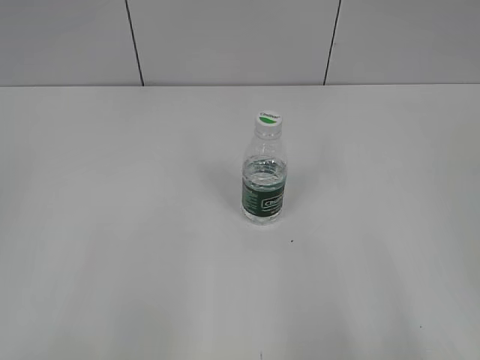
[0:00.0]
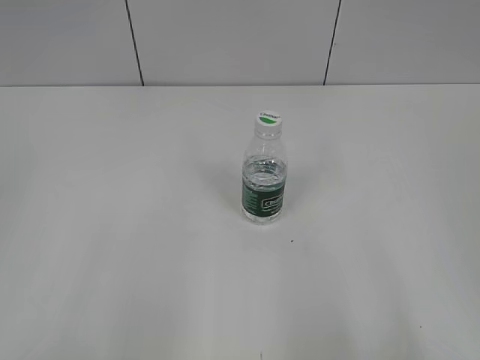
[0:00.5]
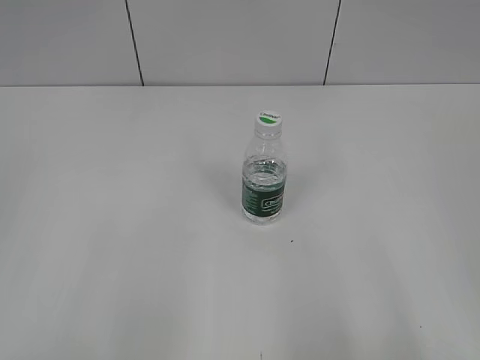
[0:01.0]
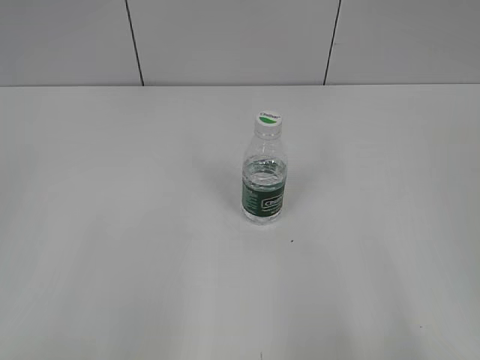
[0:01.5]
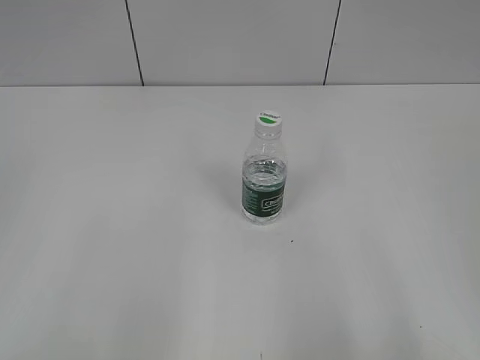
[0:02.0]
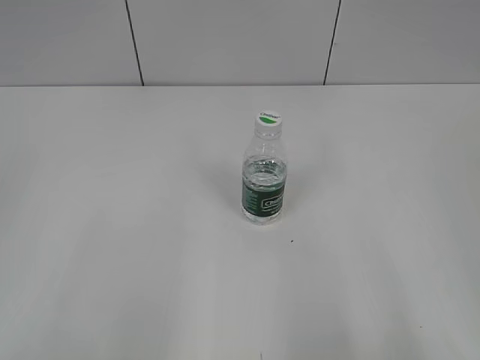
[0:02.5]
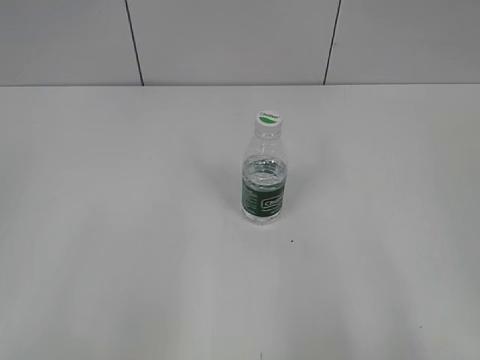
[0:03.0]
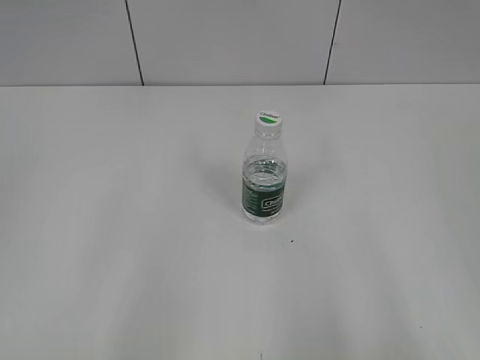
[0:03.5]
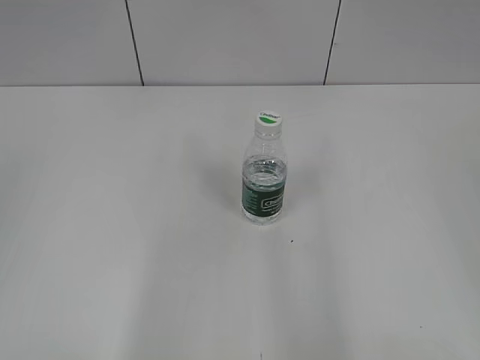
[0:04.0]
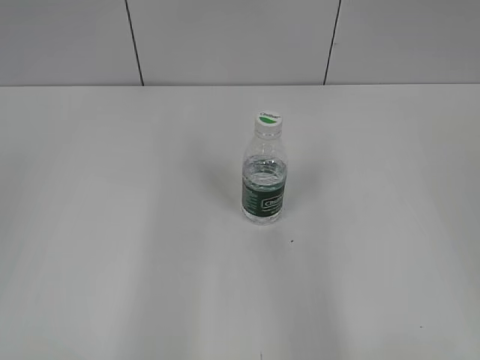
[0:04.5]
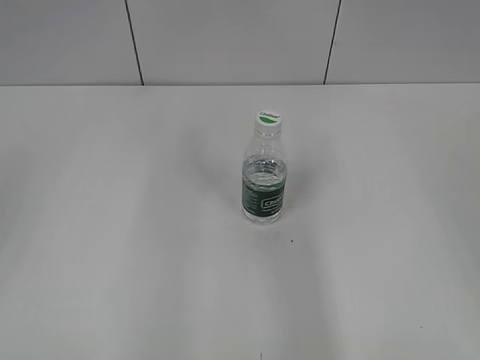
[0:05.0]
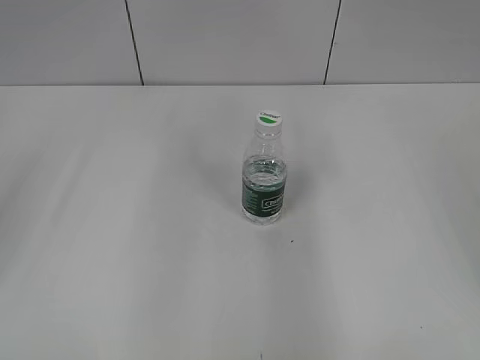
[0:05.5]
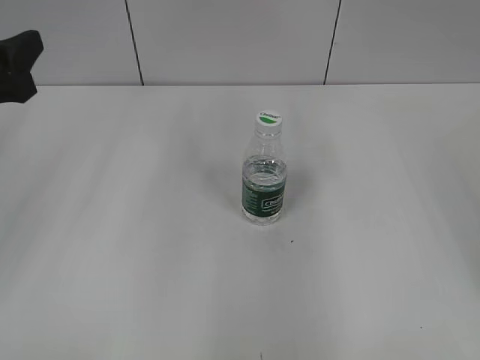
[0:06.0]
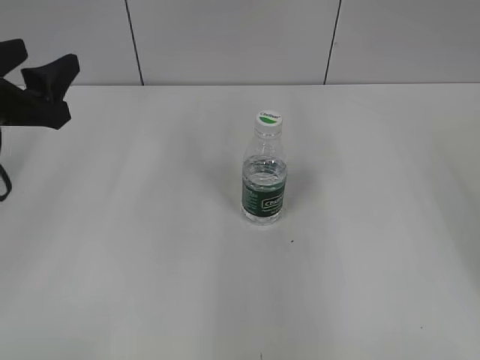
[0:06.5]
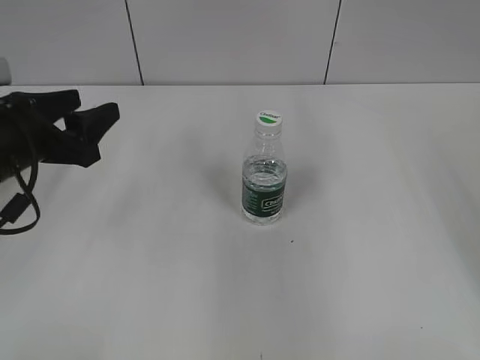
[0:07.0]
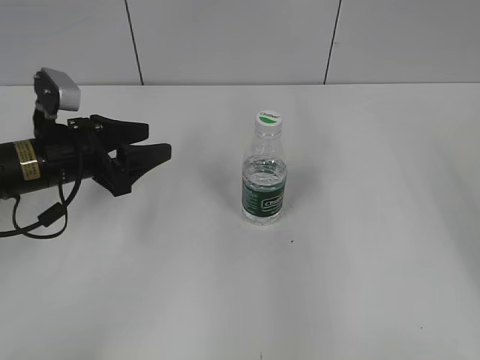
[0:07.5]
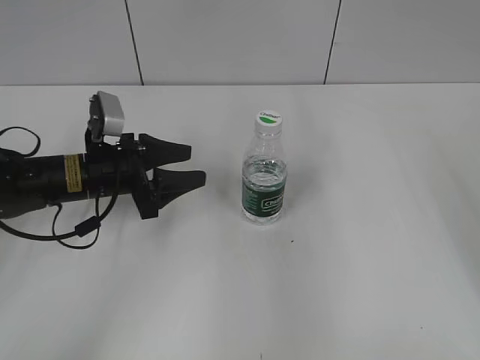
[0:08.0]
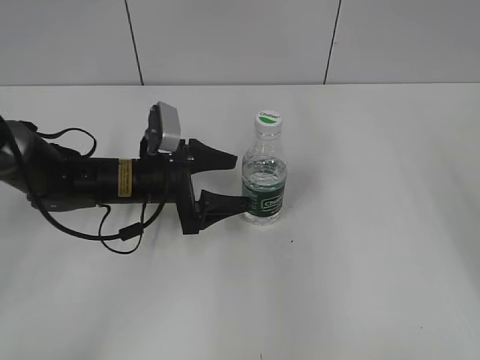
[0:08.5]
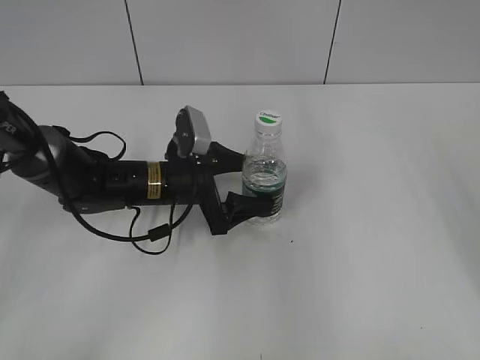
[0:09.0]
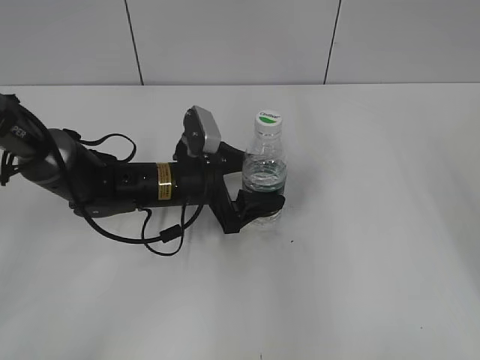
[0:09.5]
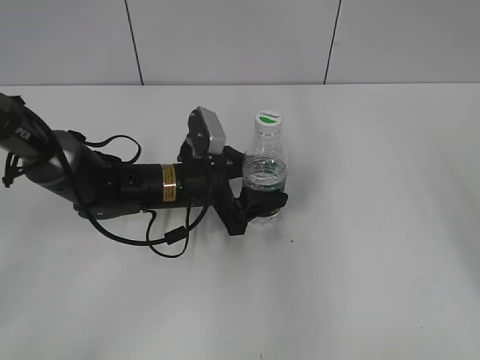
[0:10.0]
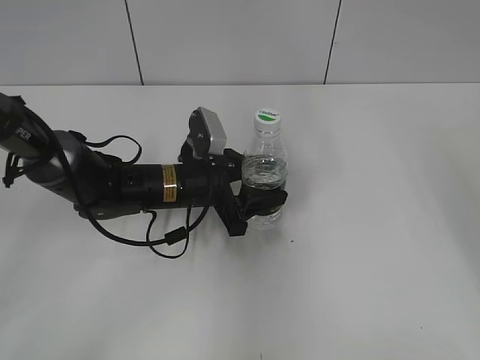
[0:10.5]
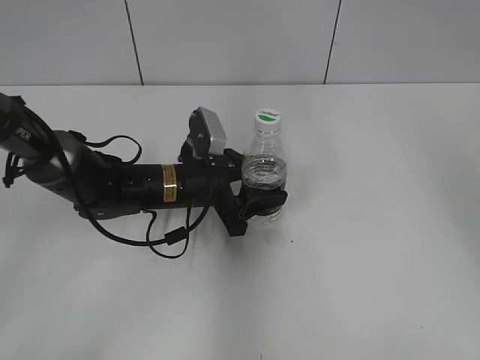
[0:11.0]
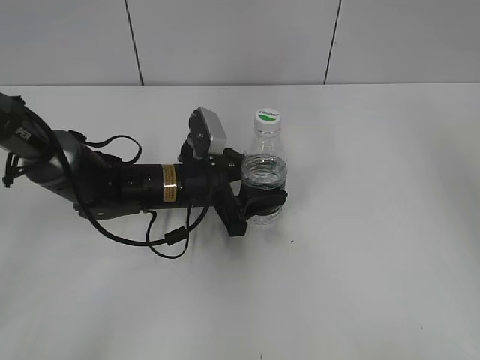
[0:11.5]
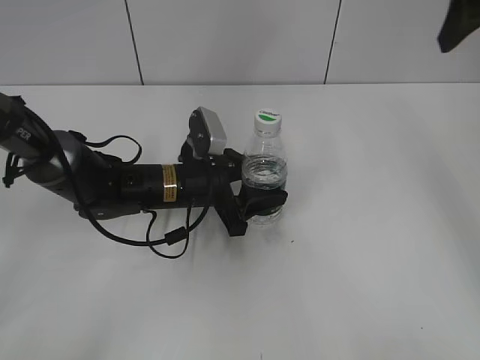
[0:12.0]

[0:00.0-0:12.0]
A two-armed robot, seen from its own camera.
Step, 0:00.0 to 0:10.5: Grasp the bottle and move it to the center of the table with the left gripper.
0:04.0 to 0:06.0: The left gripper shifts some 20 cm forward and downward.
0:06.0 to 0:08.0: The left gripper heads downward, forward and to the right, covering about 20 cm.
0:08.0 to 0:10.0: The left gripper is displaced to the right by some 10 cm, and opens and closes again.
0:10.0 to 0:12.0: The right gripper is displaced forward, upward and to the left by some 15 cm.

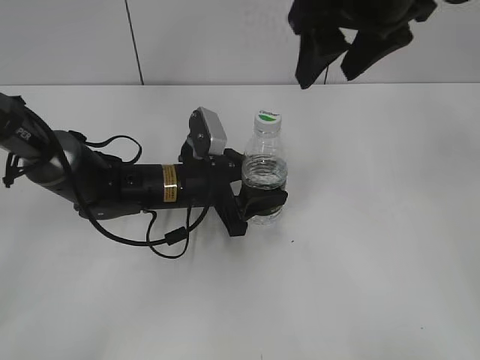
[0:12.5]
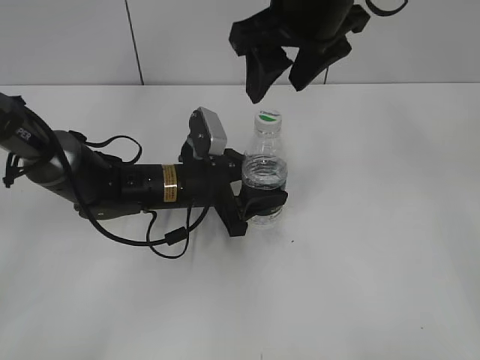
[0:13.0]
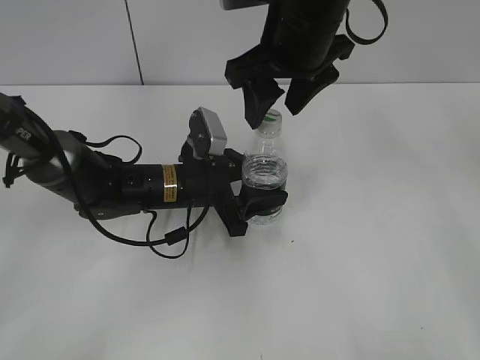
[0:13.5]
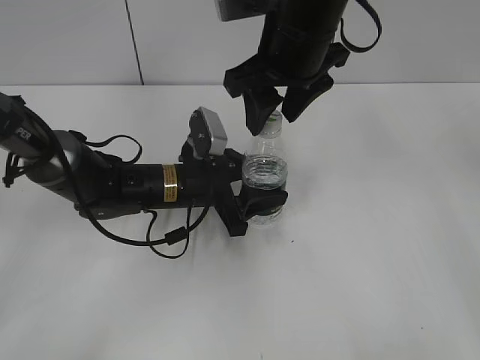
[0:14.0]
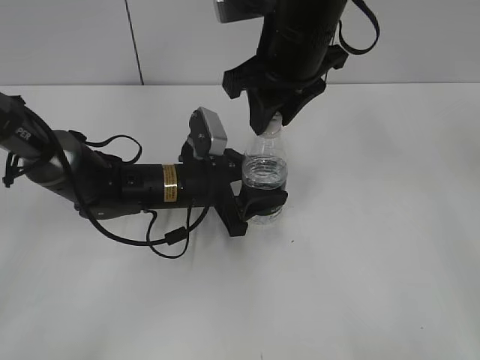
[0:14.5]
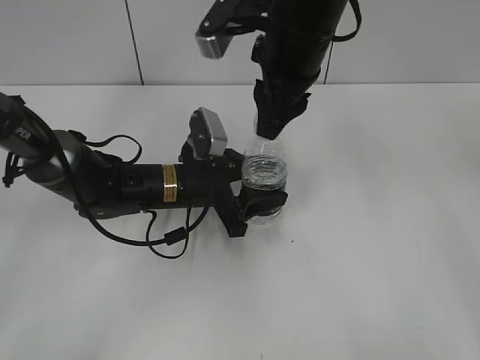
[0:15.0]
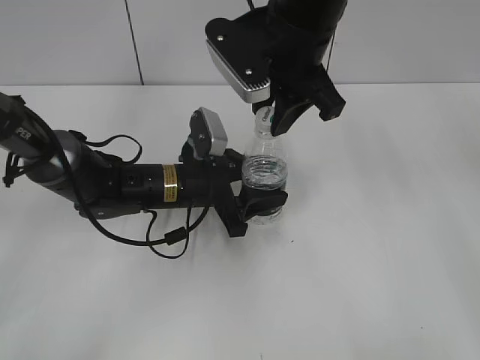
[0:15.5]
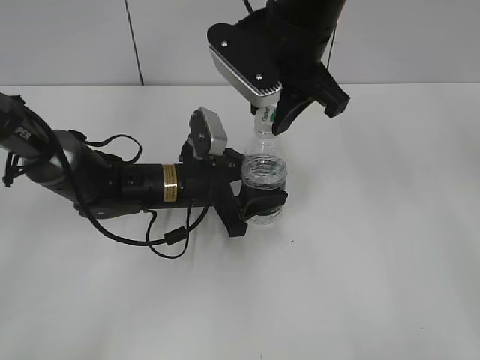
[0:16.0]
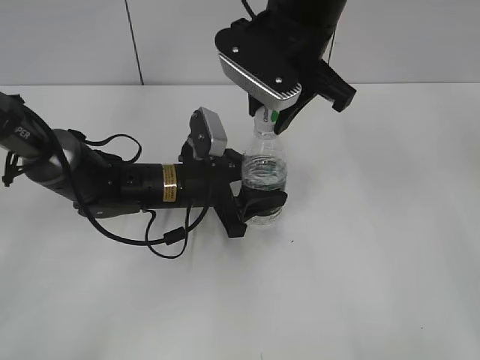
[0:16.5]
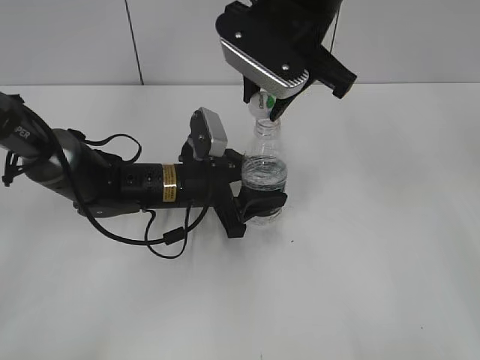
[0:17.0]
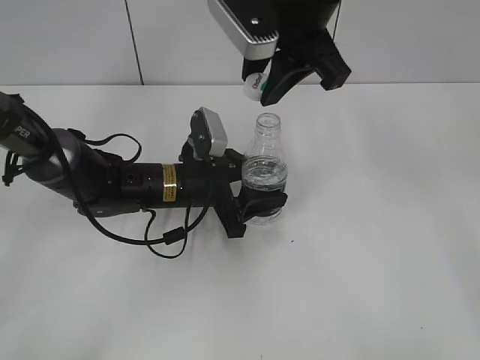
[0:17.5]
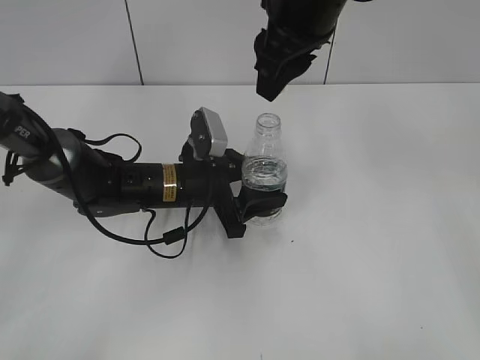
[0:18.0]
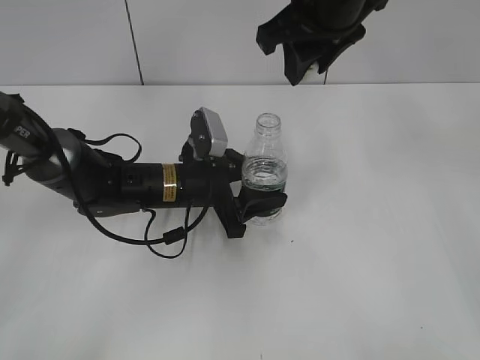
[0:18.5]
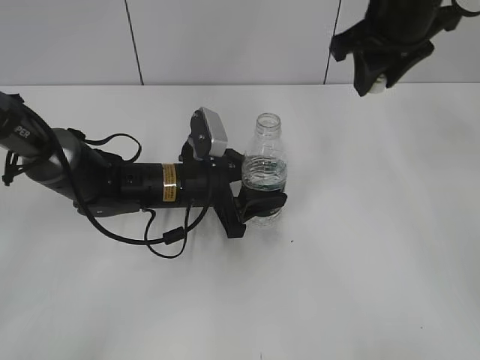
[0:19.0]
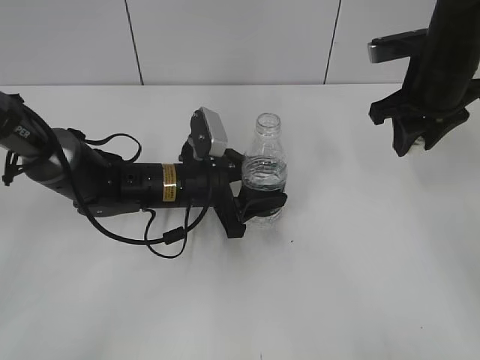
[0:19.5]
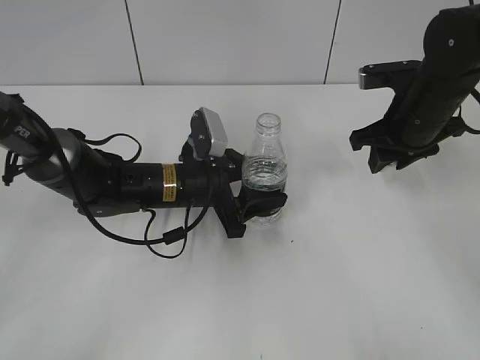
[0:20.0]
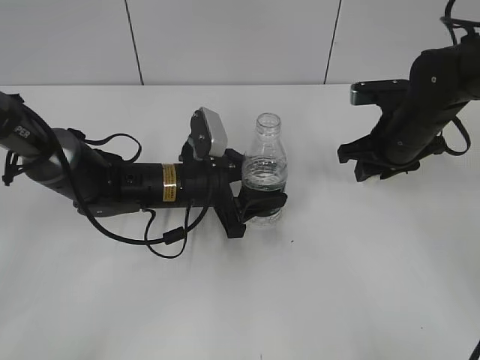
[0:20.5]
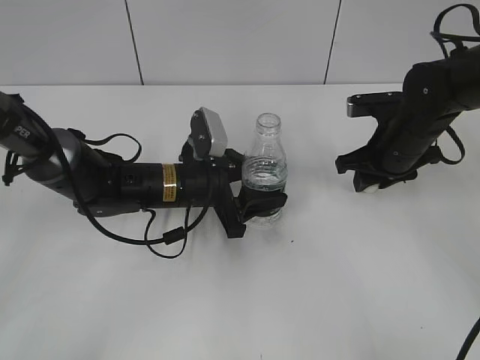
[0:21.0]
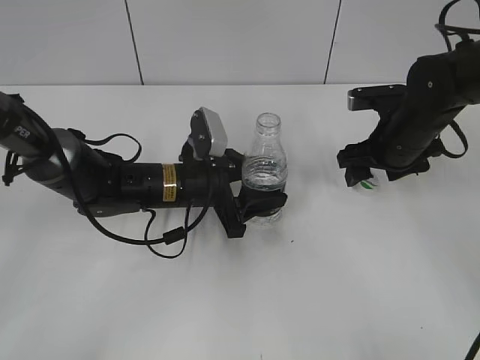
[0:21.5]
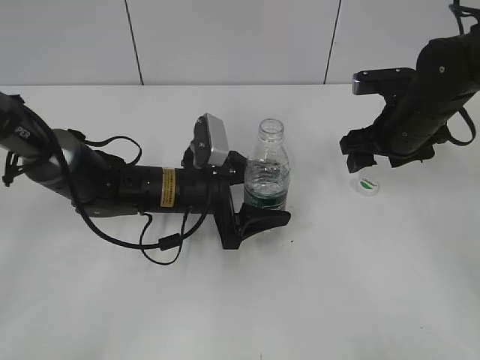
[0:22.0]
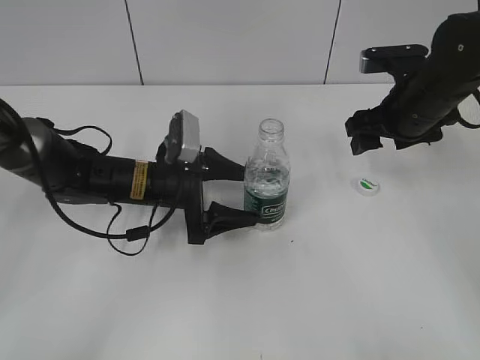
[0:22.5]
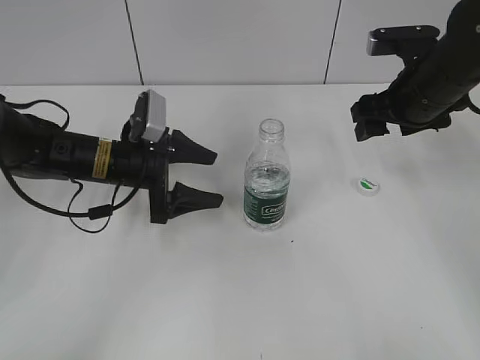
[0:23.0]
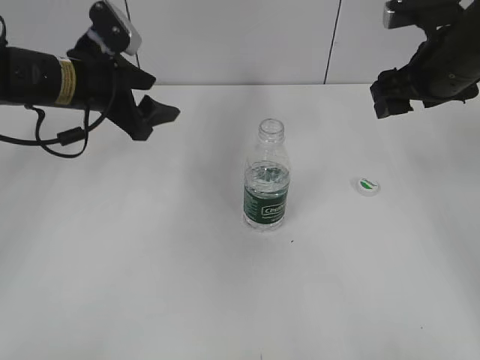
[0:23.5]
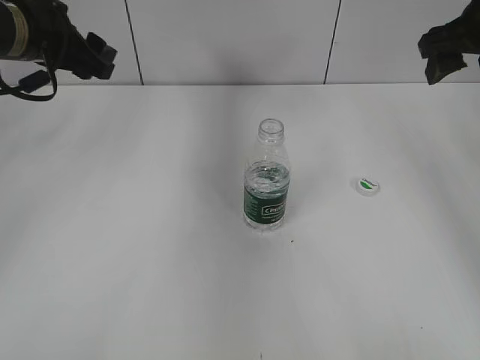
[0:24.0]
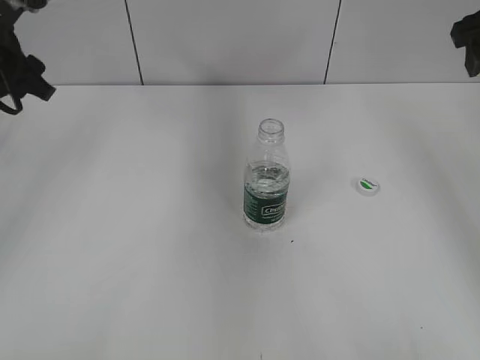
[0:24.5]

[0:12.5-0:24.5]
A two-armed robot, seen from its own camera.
Step, 0:12.5 to 0:17.0: Unscrew the bottle cap with the right gripper while holding the bottle with the left gripper.
Step, 0:17.5 to 0:21.5: Place the bottle cap on the table with the right gripper.
Step, 0:22.0 to 0:22.5: Place the bottle on the table with the left gripper.
0:12.5 to 0:14.5: The right gripper moves downward and to the left, about 10 cm, and closes up.
0:16.5 to 0:18.5: The right gripper changes place by some 5 cm.
0:18.5 to 0:20.5: The right gripper heads downward and to the right, covering roughly 20 cm.
0:20.5 to 0:22.5: The left gripper opens up, while the right gripper opens its fingers.
0:22.5 to 0:24.5: The left gripper moves upward and to the left, about 25 cm, and closes up; the right gripper shifts approximately 15 cm upward and to the right.

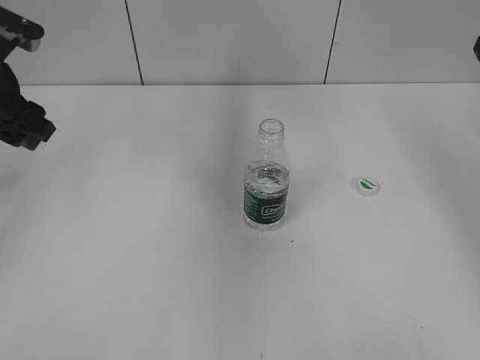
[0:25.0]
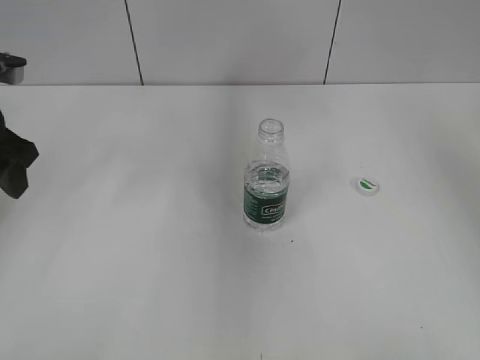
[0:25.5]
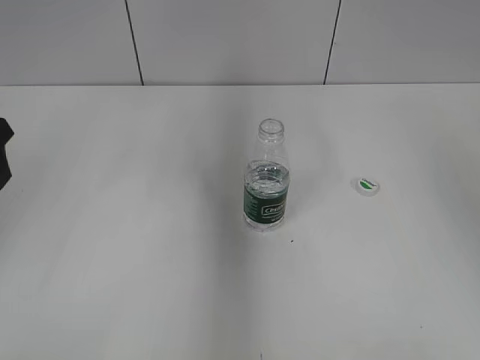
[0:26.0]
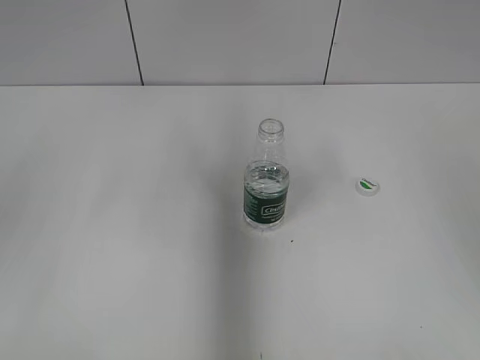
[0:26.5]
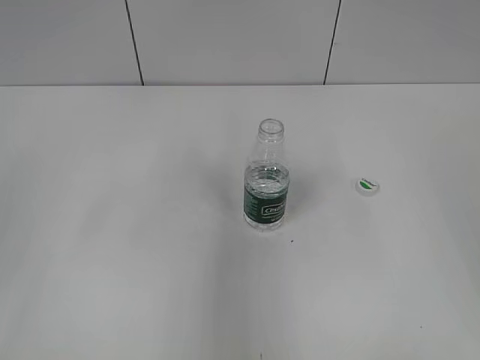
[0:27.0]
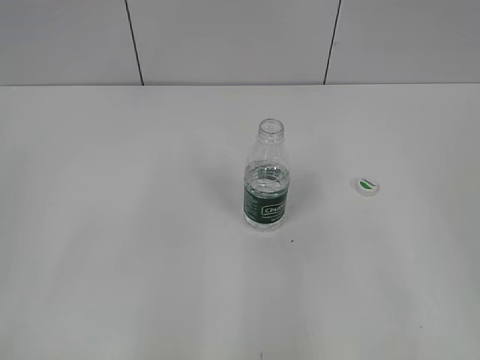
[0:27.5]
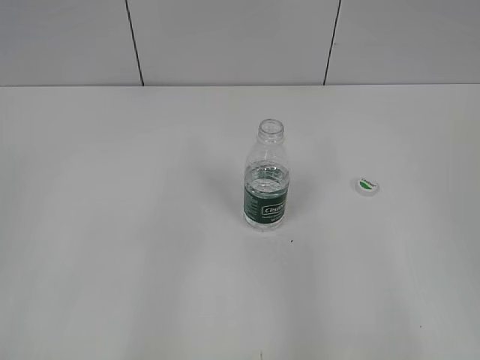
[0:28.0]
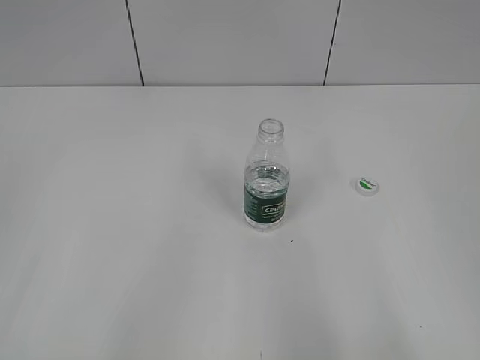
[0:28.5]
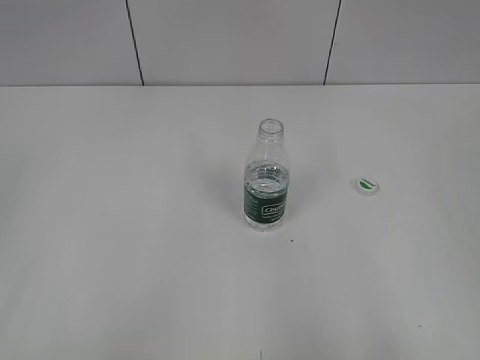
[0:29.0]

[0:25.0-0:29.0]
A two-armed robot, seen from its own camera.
0:25.0 to 0:27.0: The left gripper travels backward by roughly 20 cm.
0:27.0 to 0:29.0: Both grippers travel together backward, roughly 15 cm.
